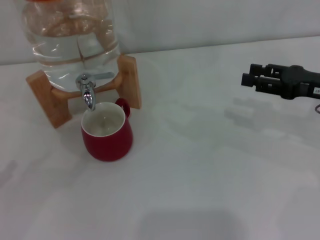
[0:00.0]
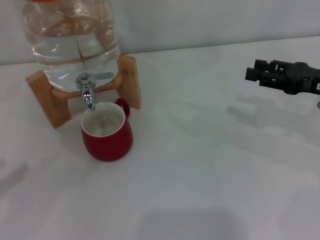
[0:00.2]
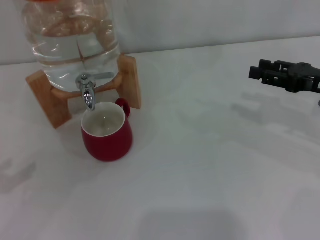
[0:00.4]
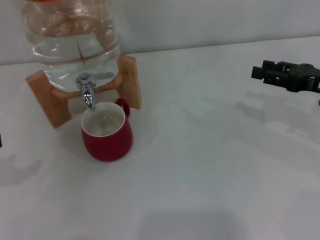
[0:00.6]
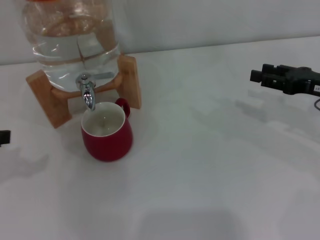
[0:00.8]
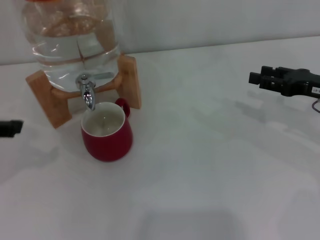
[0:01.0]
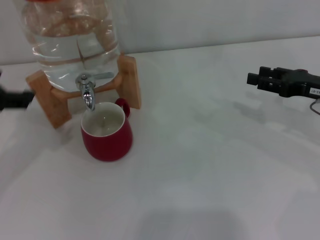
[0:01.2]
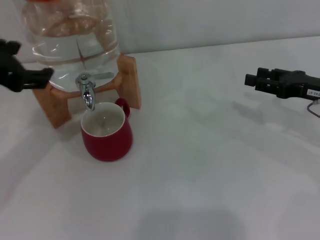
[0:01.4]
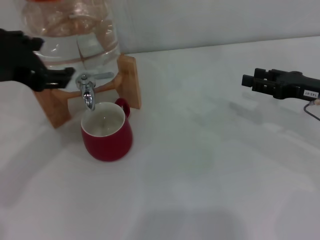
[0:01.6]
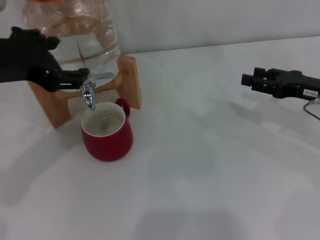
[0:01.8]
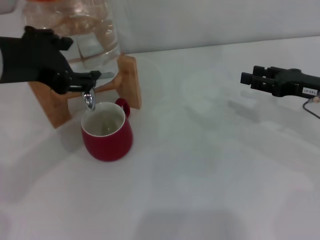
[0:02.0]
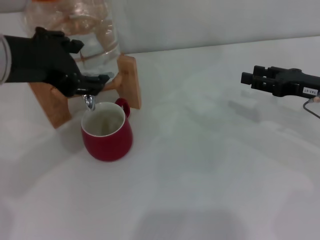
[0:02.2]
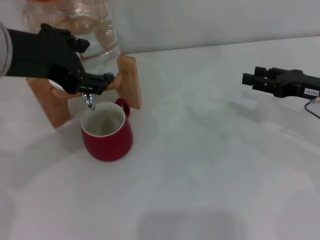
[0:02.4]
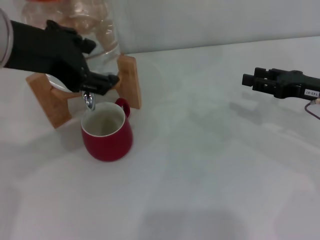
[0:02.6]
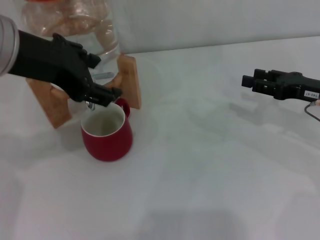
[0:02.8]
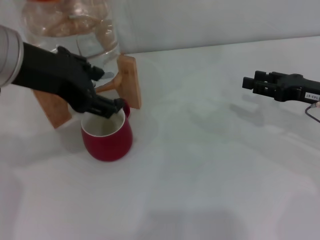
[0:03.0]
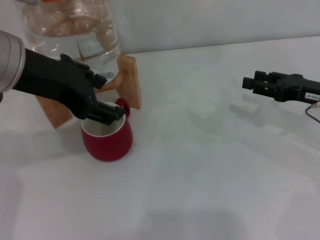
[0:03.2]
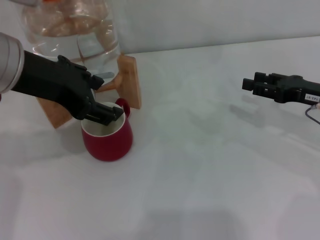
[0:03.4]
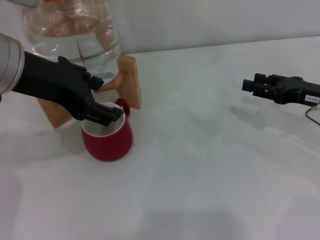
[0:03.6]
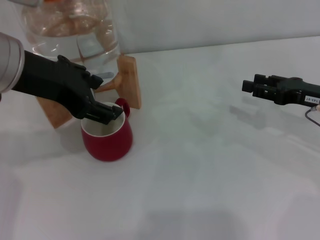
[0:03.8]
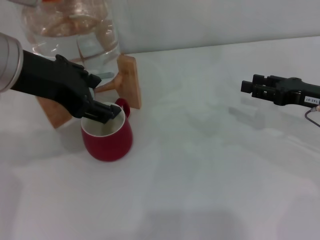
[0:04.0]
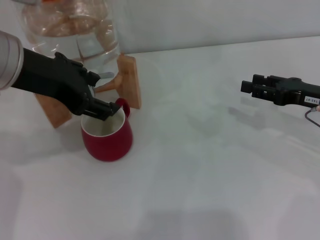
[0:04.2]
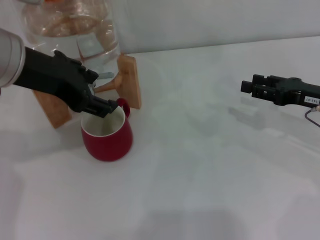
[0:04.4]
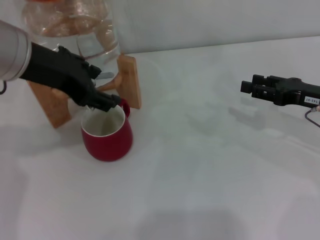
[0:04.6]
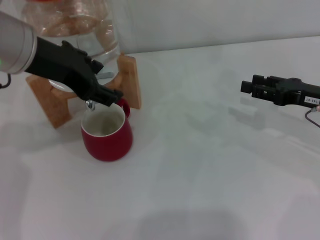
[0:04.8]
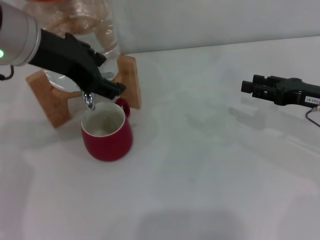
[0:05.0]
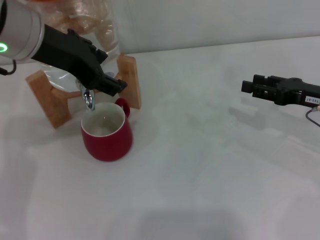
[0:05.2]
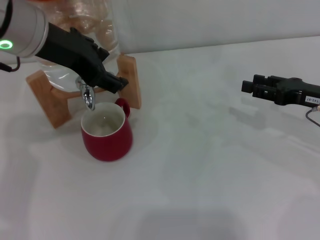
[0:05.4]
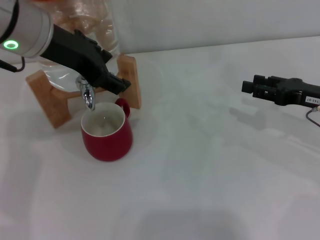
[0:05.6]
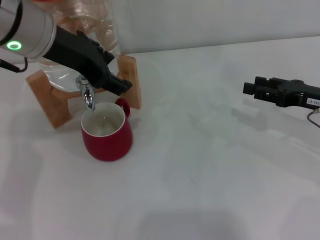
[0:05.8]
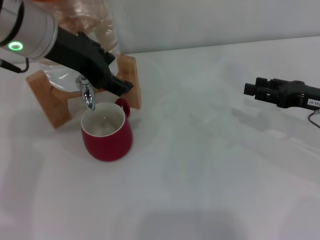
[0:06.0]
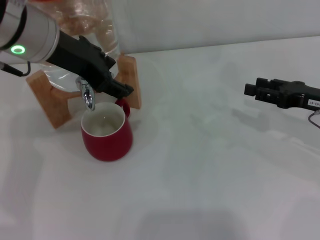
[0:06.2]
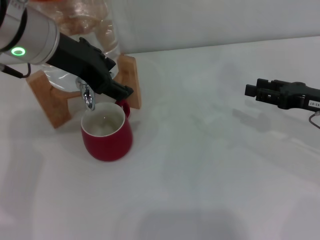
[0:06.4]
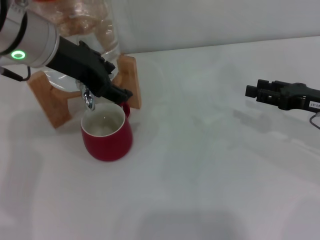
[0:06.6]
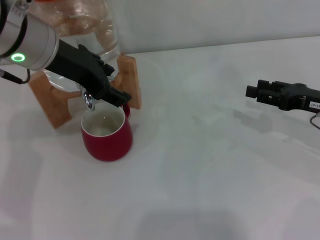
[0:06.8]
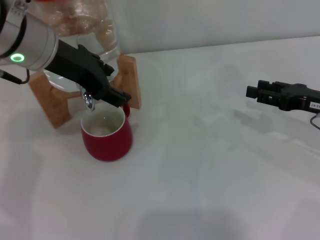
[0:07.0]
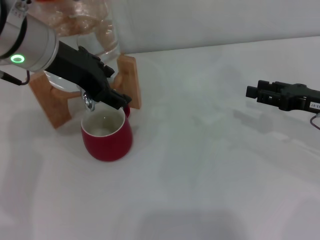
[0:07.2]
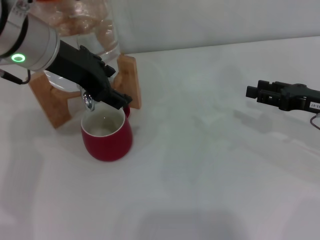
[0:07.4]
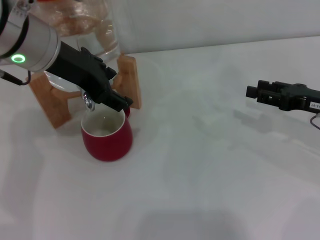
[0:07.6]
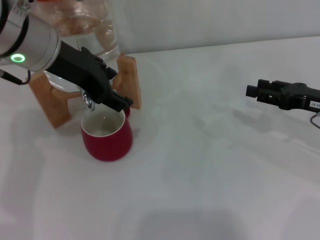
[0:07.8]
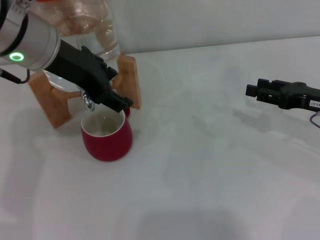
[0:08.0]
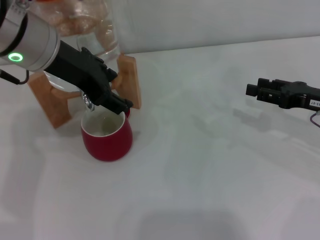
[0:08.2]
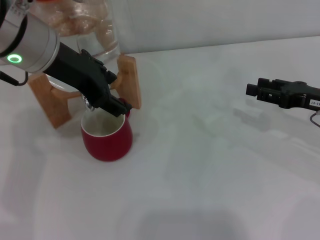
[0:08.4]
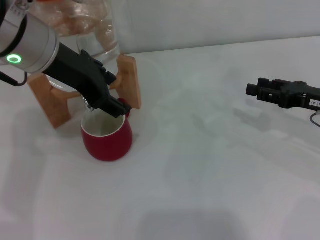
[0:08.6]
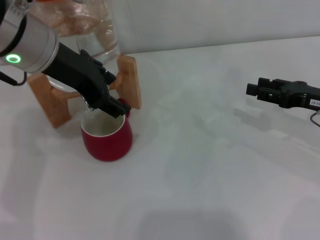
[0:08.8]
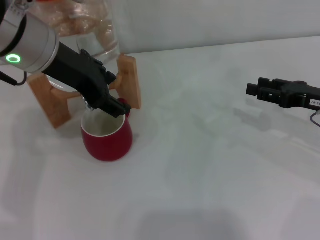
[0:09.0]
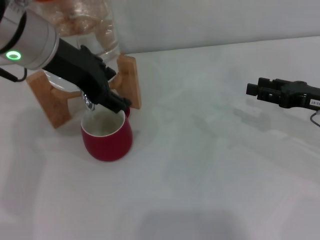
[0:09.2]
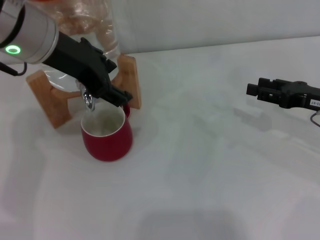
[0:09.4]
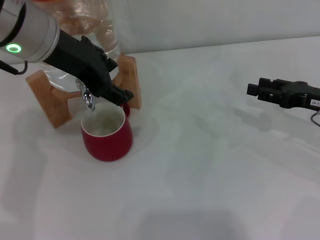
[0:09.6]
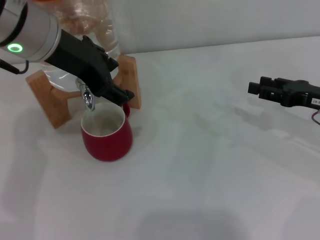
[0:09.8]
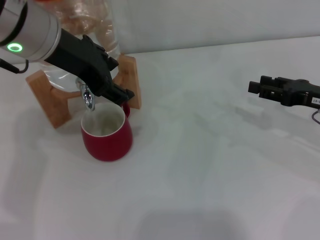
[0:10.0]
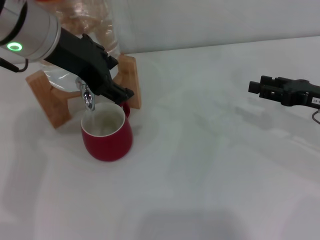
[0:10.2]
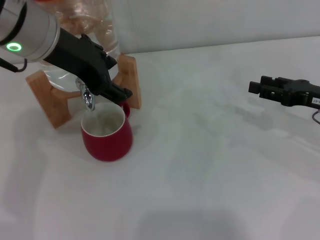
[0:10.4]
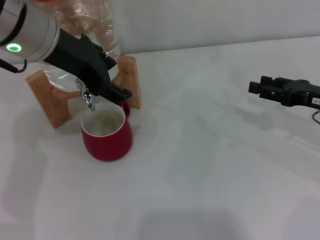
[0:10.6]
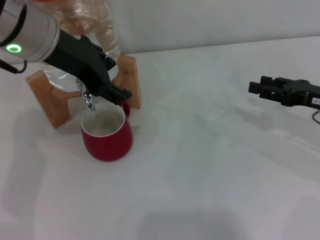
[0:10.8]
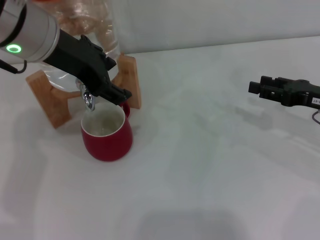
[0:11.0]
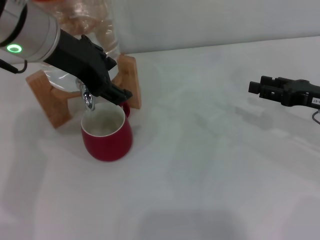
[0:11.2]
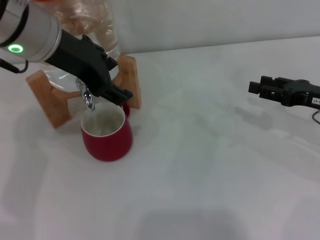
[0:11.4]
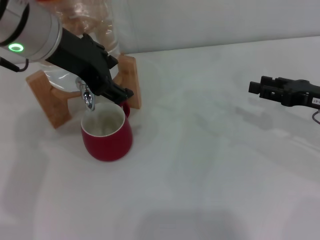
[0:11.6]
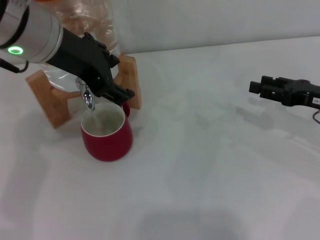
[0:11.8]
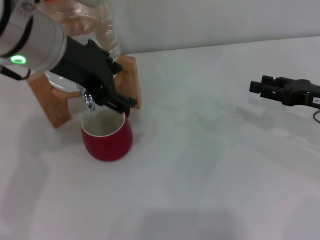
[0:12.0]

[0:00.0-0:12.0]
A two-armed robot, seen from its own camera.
Task of the whole recording: the right gripper pick up the red cup and place it horizontally under the faucet, the left gripper turn on the faucet to fill the cup, and then turn off the faucet.
0:00.0 to 0:01.6: The left gripper is displaced to the right, upward and forward by about 25 cm.
0:03.0 to 0:04.4: The grippers make only small movements.
0:04.4 to 0:06.0: The left gripper ends up about 5 cm from where it was.
0:06.0 to 0:07.6: The grippers stay close to where they were, moving slightly.
0:07.6 to 0:09.0: Both grippers stay put.
0:09.0 to 0:10.4: Both grippers stay put.
0:10.4 to 0:12.0: The grippers stay close to where they were, moving slightly.

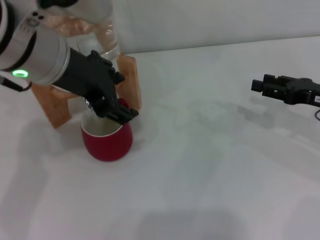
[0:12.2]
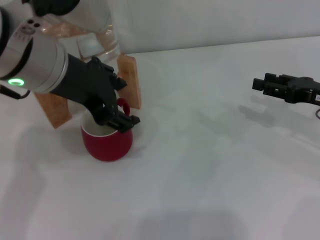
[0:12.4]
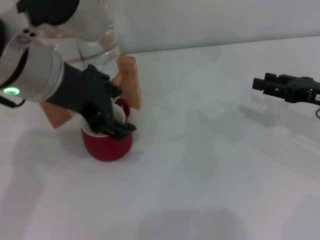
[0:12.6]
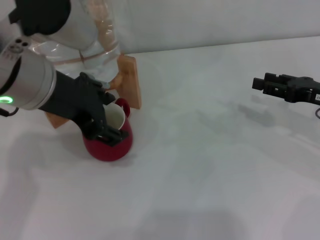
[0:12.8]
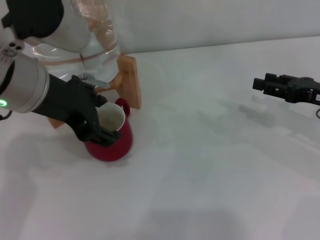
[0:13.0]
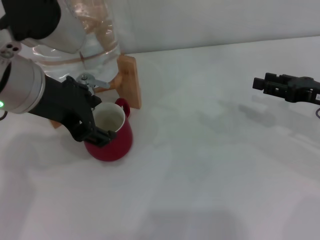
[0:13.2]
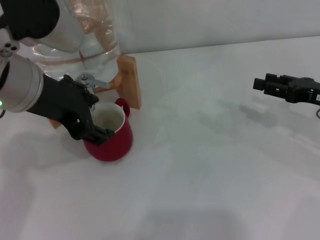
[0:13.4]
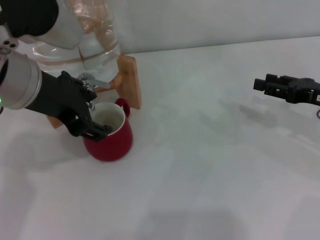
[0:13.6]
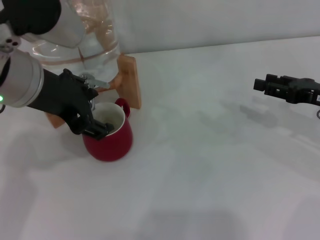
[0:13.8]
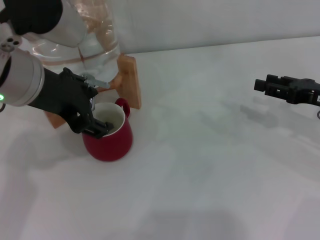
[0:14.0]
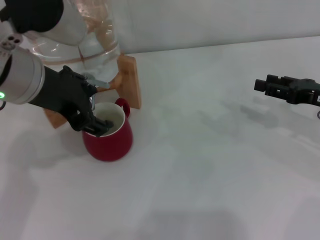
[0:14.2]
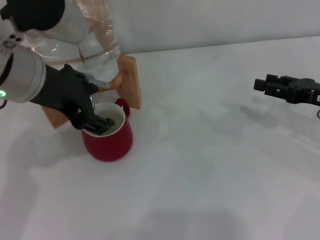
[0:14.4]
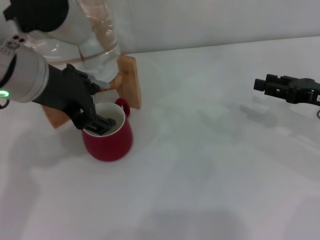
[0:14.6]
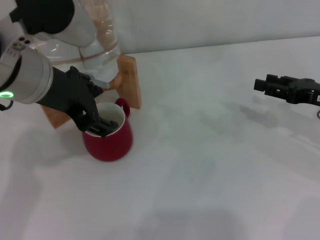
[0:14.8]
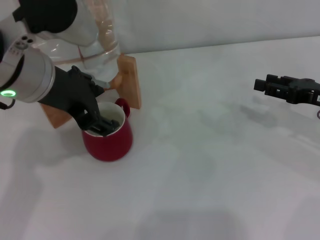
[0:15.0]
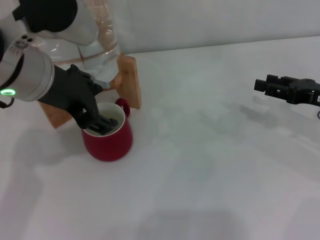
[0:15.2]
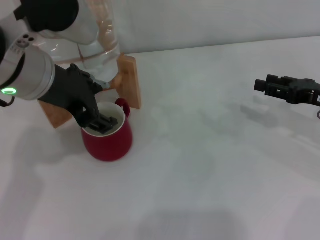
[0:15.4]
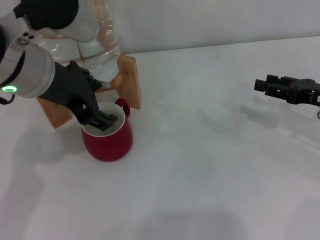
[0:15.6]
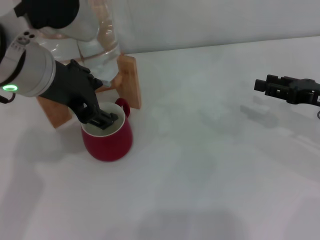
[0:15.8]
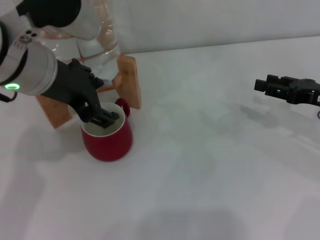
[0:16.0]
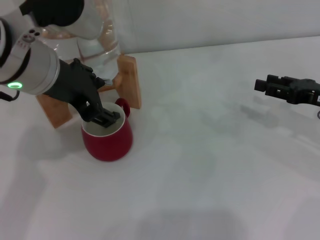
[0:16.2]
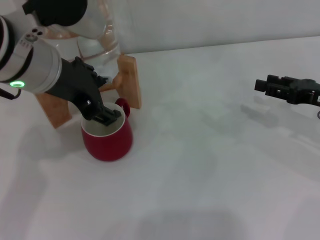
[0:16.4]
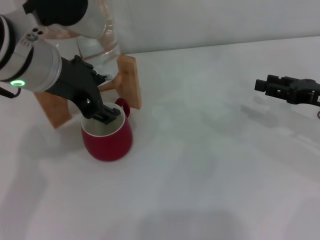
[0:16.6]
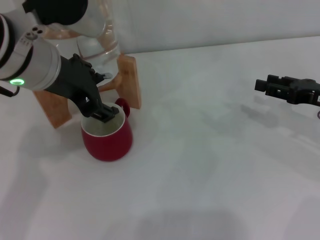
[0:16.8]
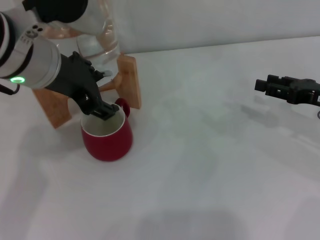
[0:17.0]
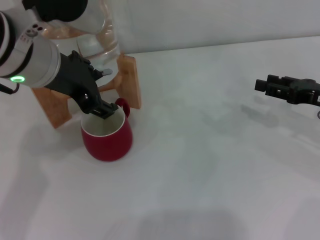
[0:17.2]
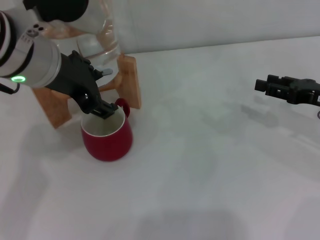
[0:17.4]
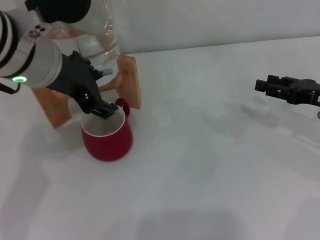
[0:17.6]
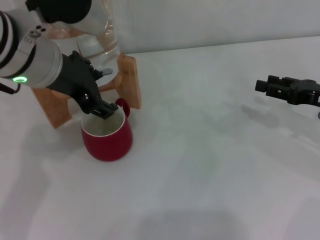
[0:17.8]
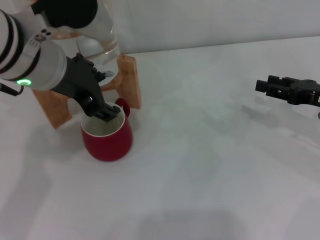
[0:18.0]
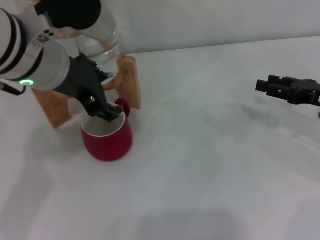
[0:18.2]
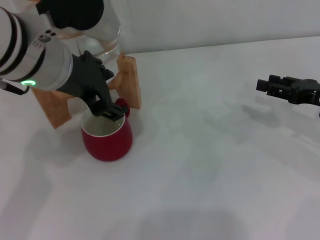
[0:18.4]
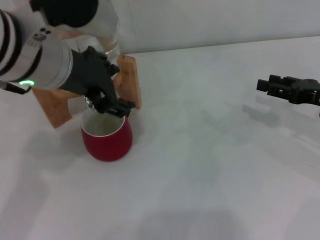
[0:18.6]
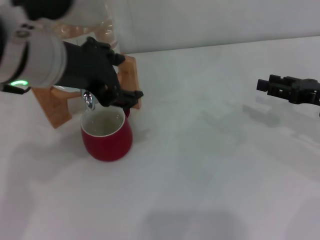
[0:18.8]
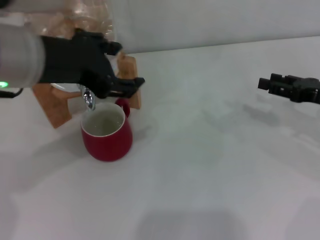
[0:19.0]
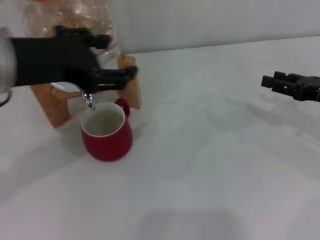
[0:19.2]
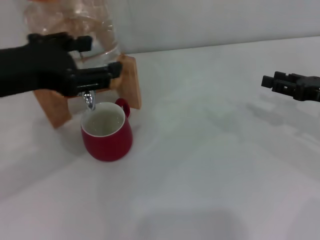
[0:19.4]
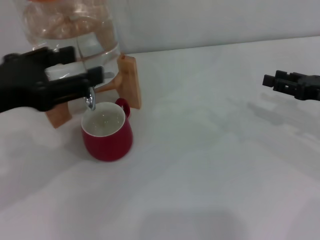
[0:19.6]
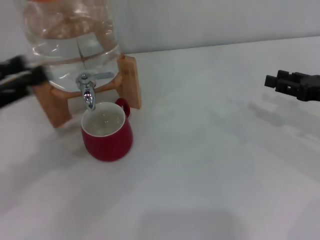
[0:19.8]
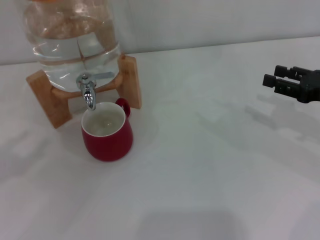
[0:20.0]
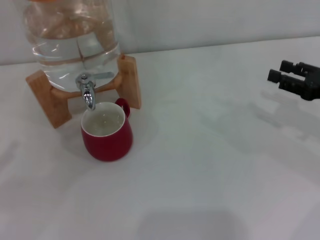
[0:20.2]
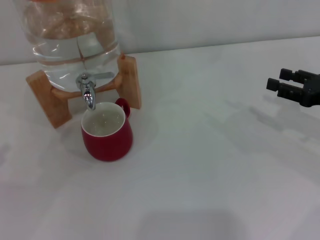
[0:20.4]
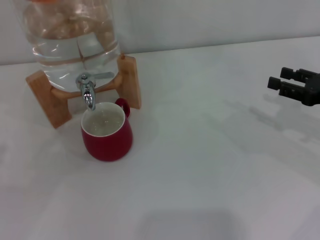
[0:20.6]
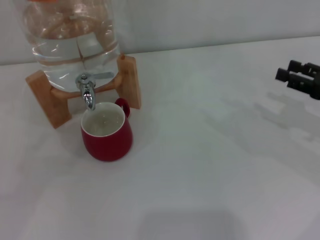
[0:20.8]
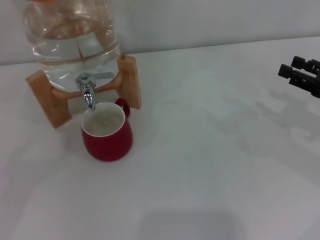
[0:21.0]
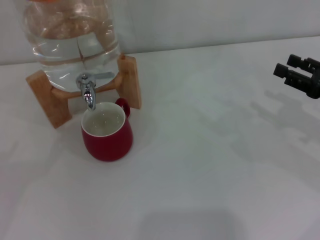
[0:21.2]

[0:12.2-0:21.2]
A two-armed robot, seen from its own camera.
Task of the whole recording: the right gripper pick up the red cup and place it horizontally under the faucet, the left gripper turn on the faucet to fill the cup, and then turn off the faucet.
Step, 0:12.2 to 0:14.4: Open the dispenser valve and fill the cup with water with the left gripper.
Step, 0:14.6 to 0:19.2: Close the dispenser valve with the left gripper.
0:12.2 to 0:13.8: The grippers make only small movements.
0:13.8 to 0:15.2: Both grippers stay about where they are.
0:15.2 to 0:16.6: Both grippers stay about where they are.
0:16.6 to 0:18.2: The two grippers keep their place.
0:18.2 to 0:19.8: The left gripper heads to the left and backward, covering about 20 cm.
0:19.8 to 0:21.2: The left gripper shifts about 15 cm to the left and downward.
